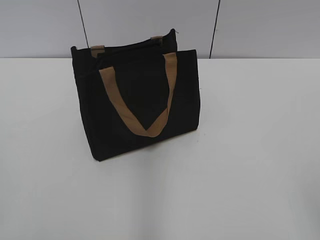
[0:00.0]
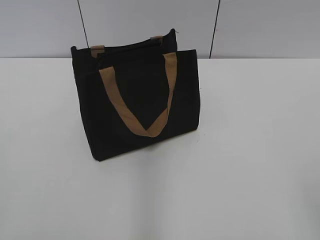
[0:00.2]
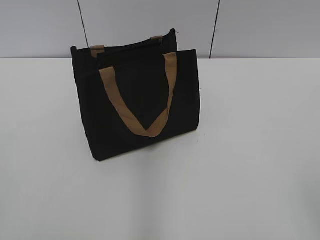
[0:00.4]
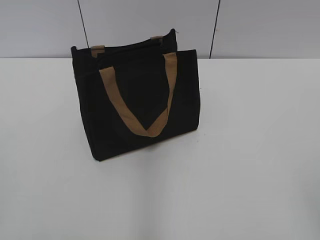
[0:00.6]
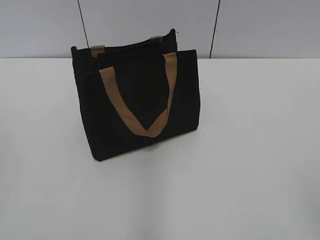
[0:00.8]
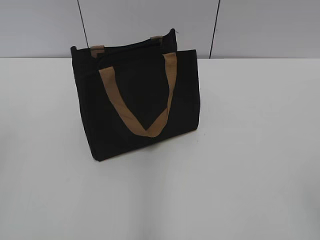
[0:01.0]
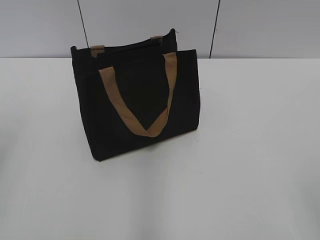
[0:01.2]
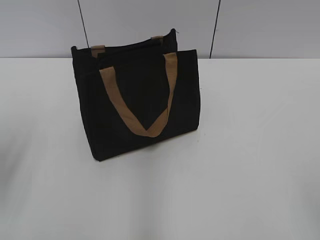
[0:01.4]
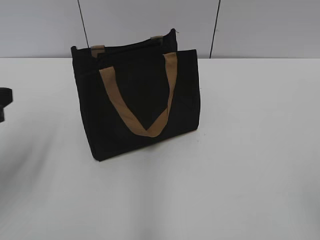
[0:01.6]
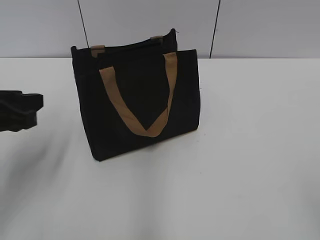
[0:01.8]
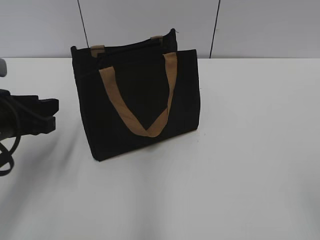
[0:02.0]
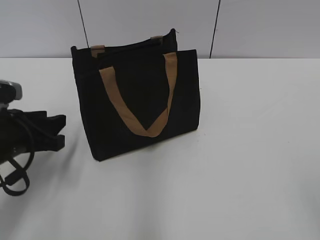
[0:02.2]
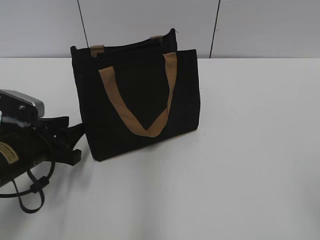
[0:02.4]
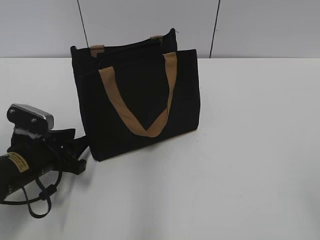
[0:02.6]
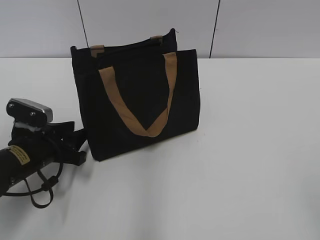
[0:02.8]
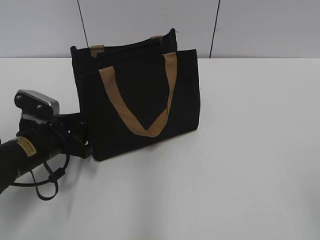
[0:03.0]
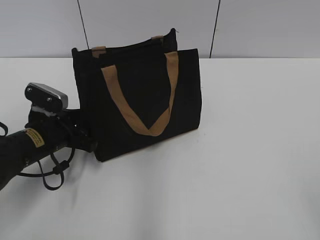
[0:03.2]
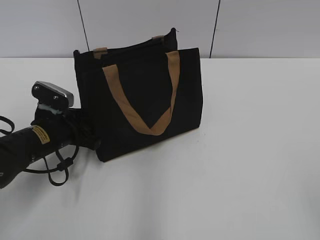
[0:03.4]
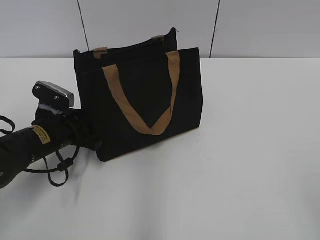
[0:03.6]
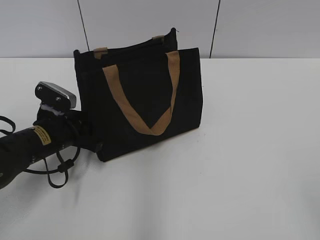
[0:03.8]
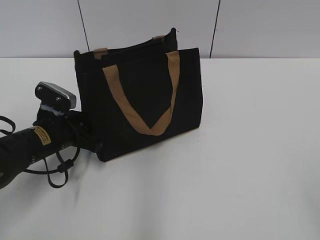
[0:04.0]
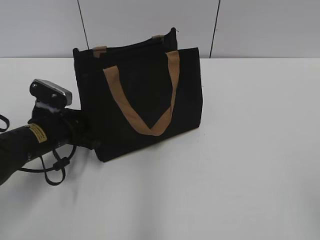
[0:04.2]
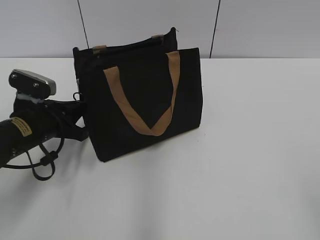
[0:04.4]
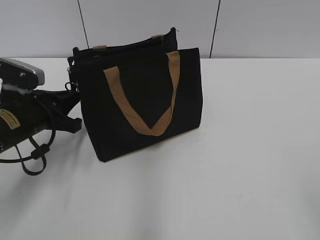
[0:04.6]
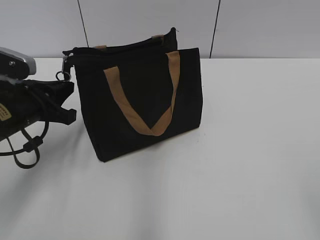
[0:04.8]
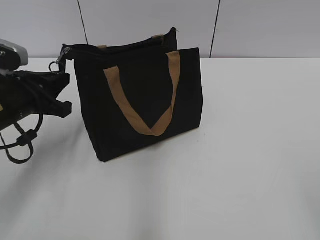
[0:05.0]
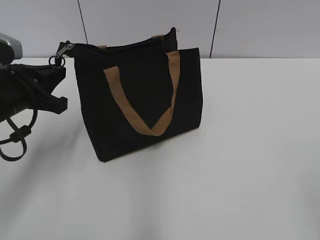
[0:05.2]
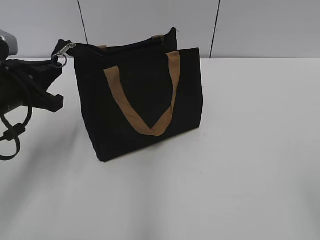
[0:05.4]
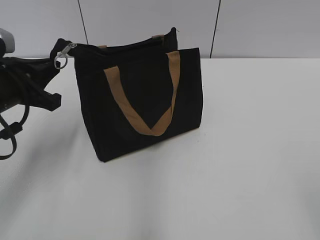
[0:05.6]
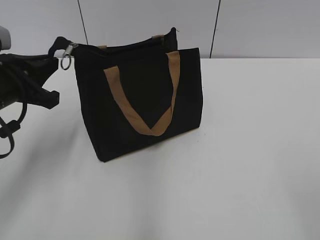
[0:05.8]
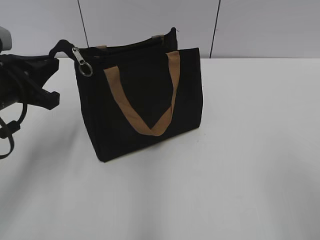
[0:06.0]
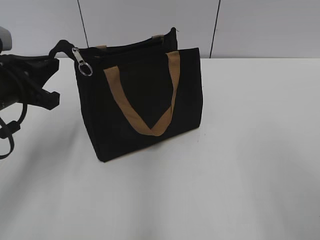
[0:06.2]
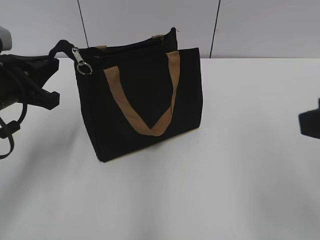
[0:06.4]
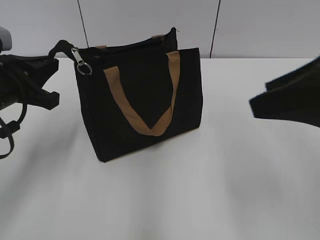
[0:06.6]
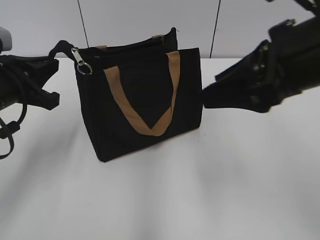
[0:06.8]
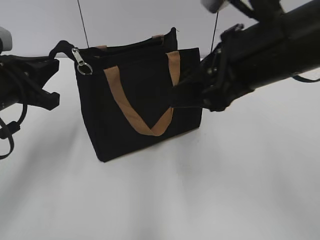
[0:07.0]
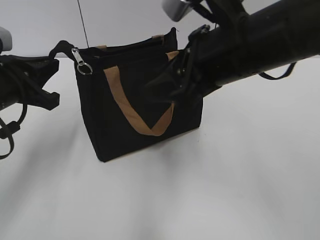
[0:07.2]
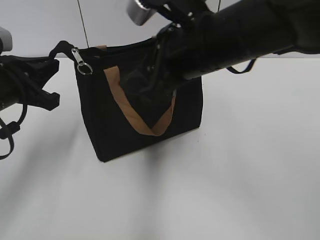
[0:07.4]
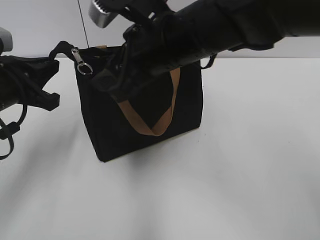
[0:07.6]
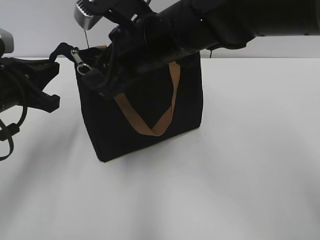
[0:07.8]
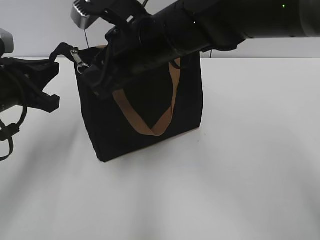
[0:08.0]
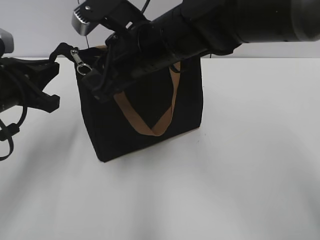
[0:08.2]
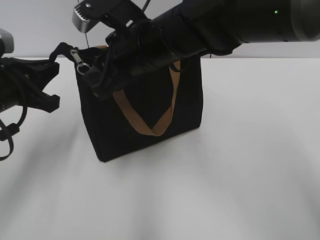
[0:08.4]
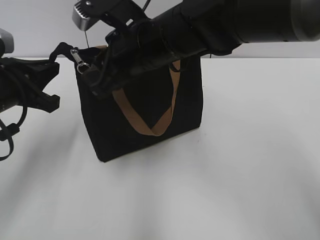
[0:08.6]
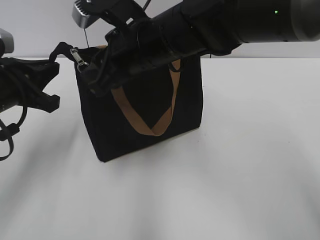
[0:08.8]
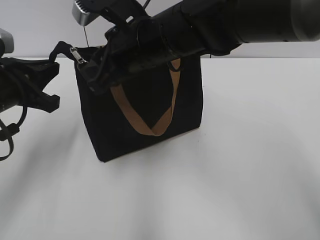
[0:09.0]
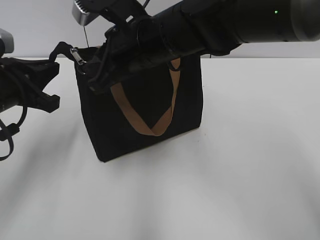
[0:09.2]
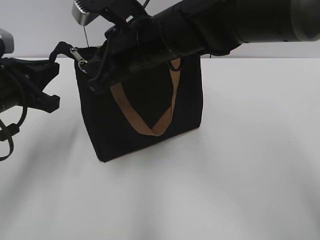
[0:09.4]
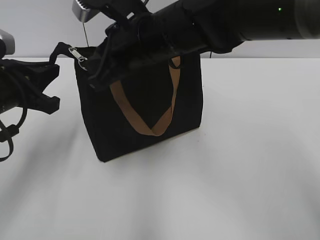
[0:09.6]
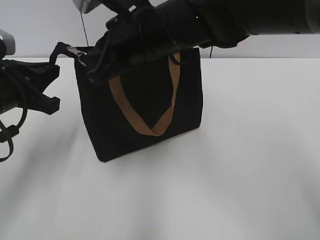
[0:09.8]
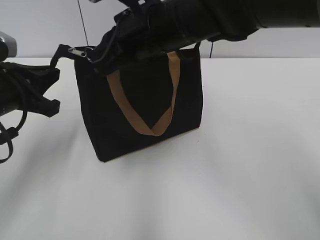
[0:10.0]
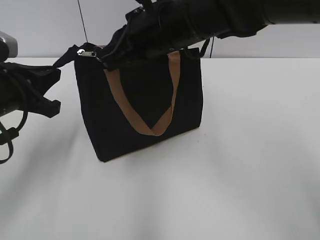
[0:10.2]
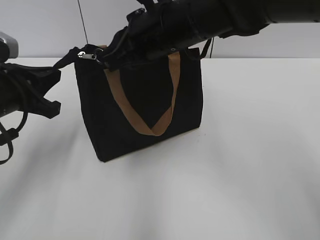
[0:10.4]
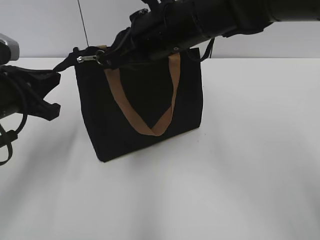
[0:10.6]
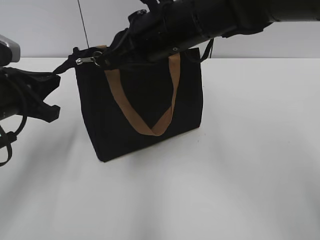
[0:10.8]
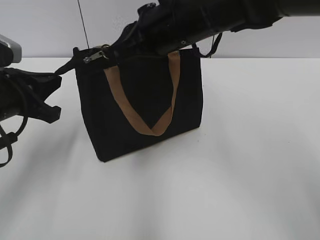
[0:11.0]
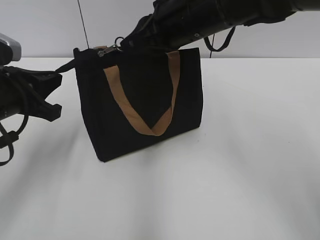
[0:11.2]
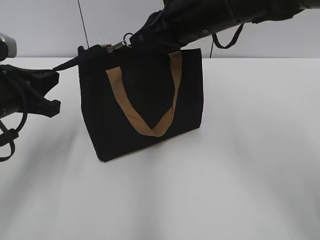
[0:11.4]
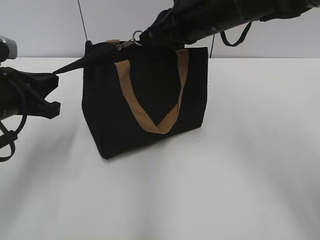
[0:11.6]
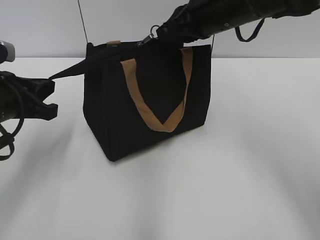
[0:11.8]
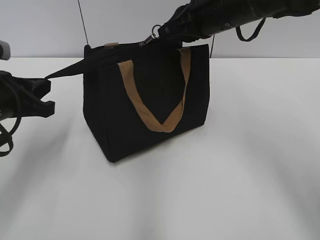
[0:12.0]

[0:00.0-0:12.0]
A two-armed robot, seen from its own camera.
0:01.6 to 0:03.0: The left gripper shifts approximately 20 cm downward, forward and to the right.
0:03.0 to 0:04.4: The left gripper closes.
0:04.4 to 0:06.0: The left gripper travels upward by roughly 10 cm.
0:06.0 to 0:07.6: The right gripper moves forward and to the left, roughly 35 cm.
0:07.6 to 0:09.0: The right gripper moves approximately 5 cm.
0:09.0 to 0:10.4: The right gripper closes.
0:10.4 to 0:12.0: The right gripper heads to the right and forward, covering approximately 10 cm.

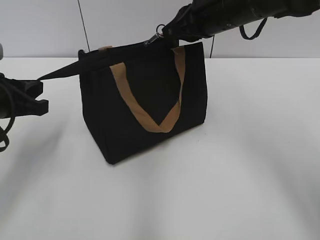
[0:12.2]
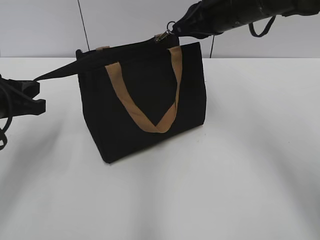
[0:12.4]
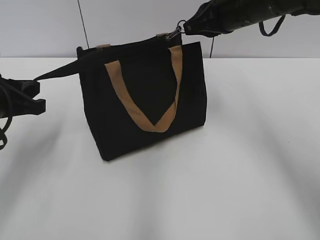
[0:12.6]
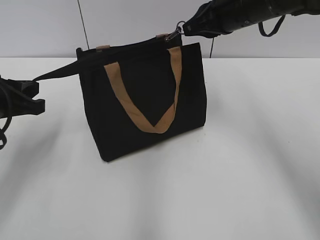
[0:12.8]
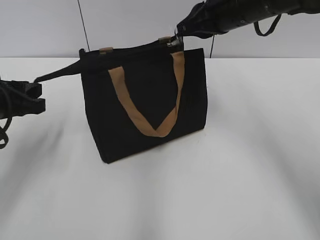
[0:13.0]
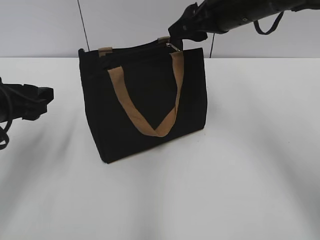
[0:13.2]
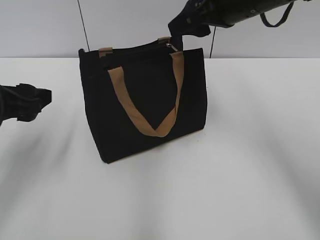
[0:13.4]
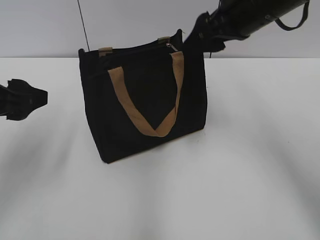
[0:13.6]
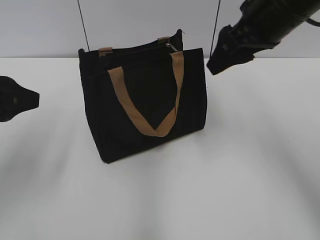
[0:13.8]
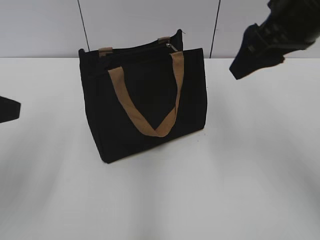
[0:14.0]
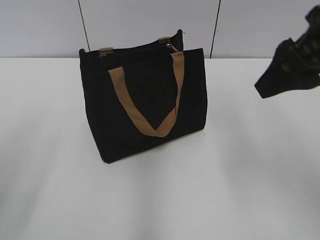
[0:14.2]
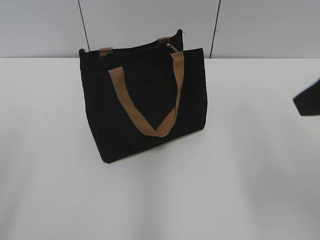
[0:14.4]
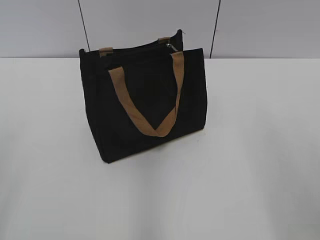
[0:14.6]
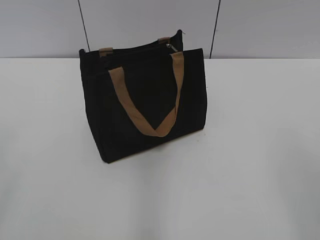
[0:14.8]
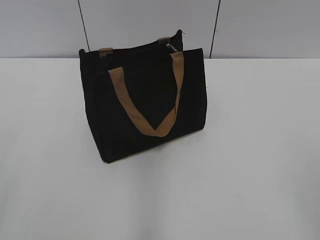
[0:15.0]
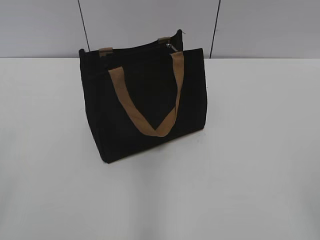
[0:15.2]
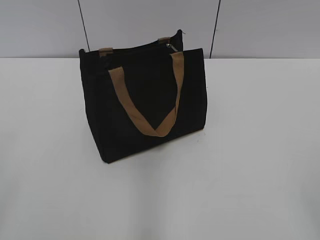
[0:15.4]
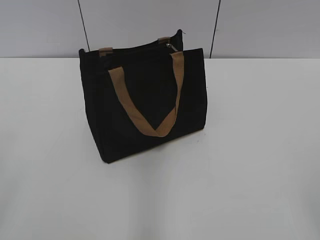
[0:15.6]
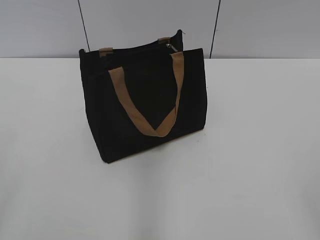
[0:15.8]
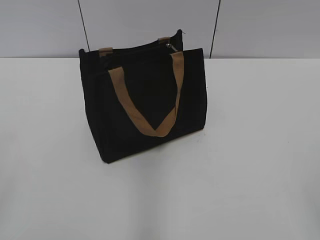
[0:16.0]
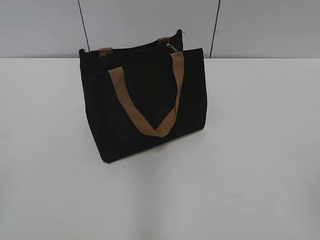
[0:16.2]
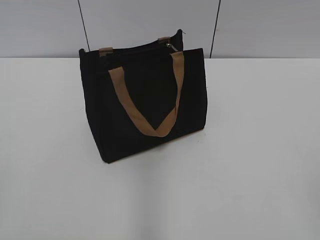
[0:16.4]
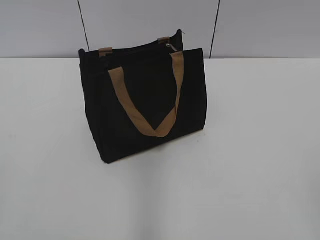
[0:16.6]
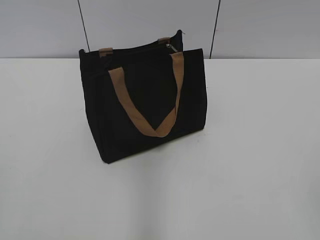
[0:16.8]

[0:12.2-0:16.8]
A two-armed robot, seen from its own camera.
0:12.2 to 0:13.8: The left gripper travels upward by approximately 5 cm, and opens; the right gripper changes place by some 5 cm, and opens up.
0:13.8 to 0:15.2: The left gripper moves backward, some 20 cm; the right gripper travels backward and to the right by approximately 35 cm.
